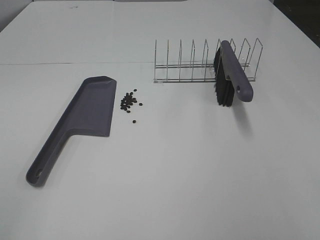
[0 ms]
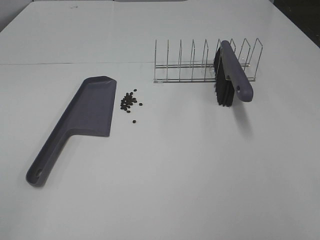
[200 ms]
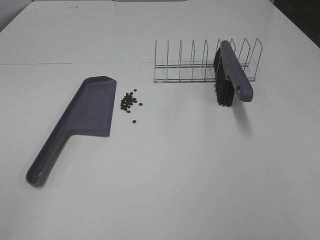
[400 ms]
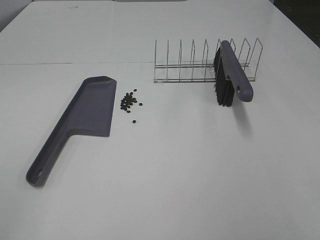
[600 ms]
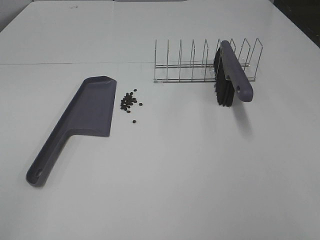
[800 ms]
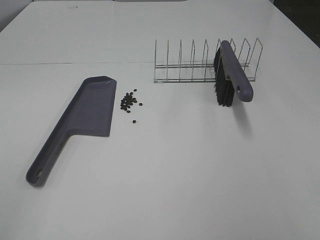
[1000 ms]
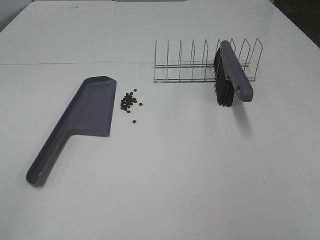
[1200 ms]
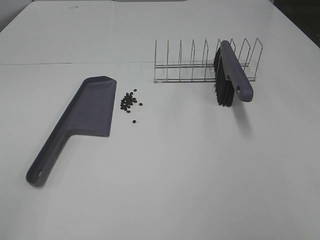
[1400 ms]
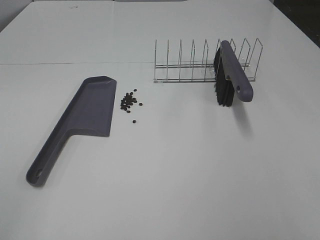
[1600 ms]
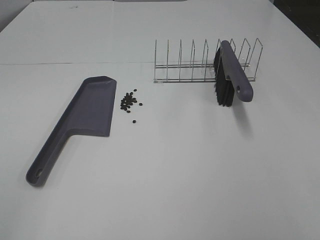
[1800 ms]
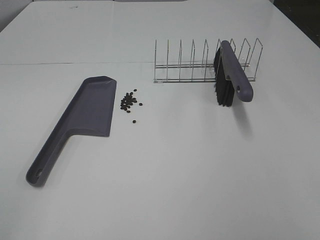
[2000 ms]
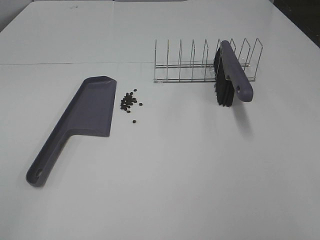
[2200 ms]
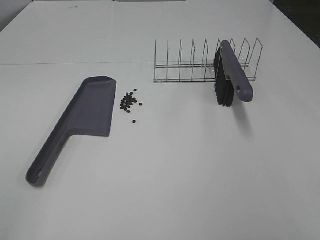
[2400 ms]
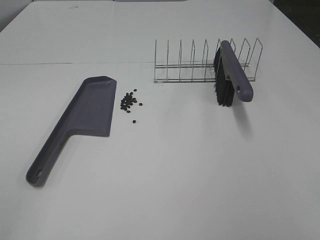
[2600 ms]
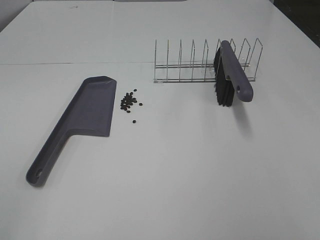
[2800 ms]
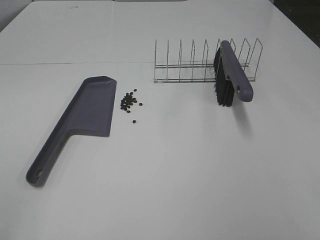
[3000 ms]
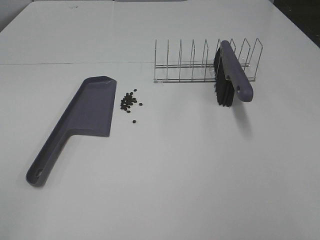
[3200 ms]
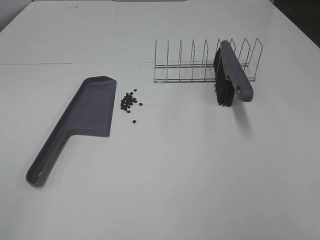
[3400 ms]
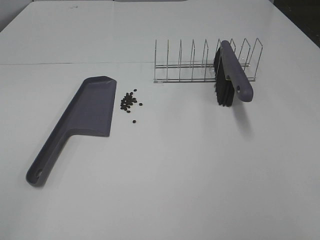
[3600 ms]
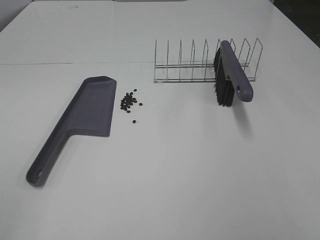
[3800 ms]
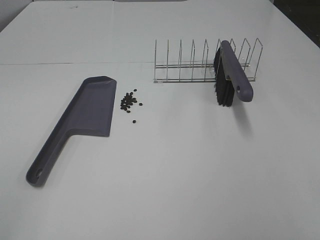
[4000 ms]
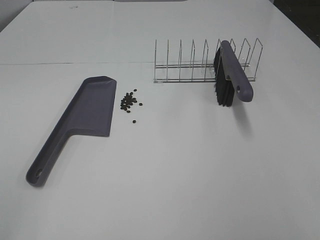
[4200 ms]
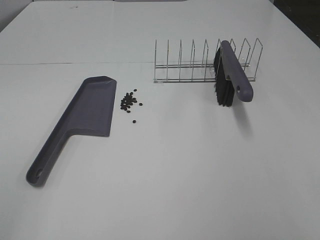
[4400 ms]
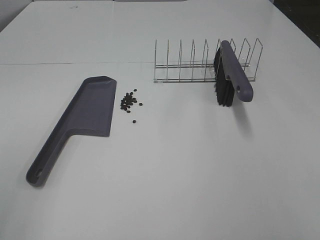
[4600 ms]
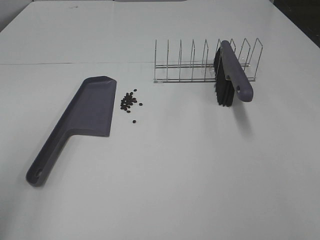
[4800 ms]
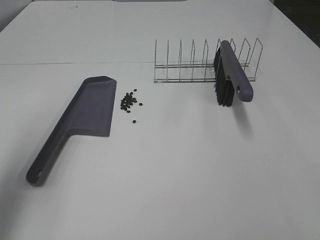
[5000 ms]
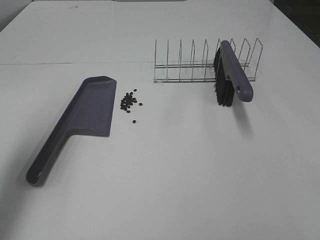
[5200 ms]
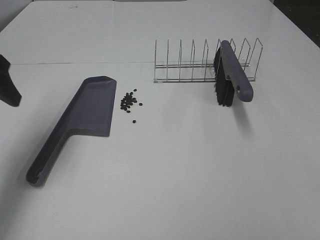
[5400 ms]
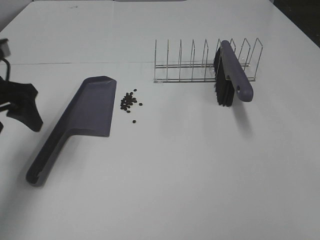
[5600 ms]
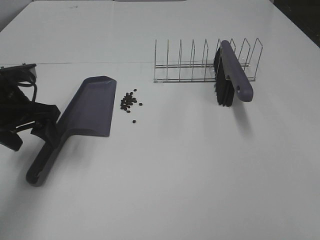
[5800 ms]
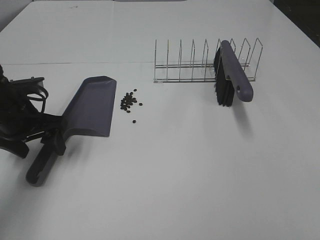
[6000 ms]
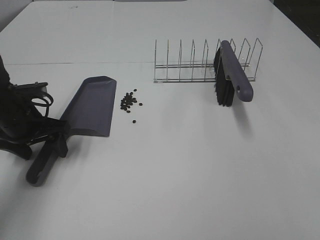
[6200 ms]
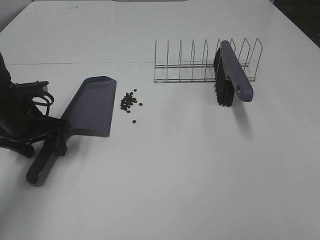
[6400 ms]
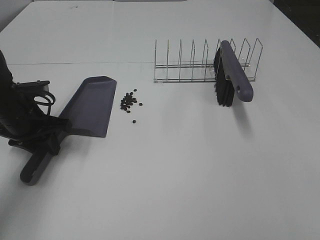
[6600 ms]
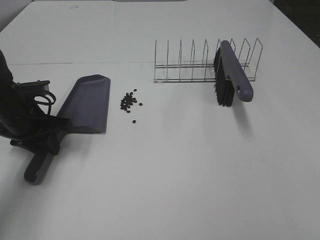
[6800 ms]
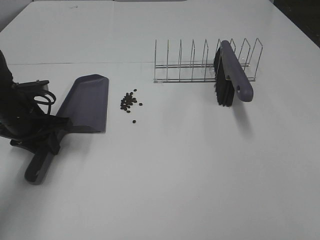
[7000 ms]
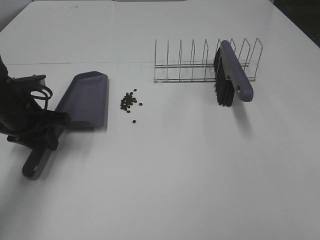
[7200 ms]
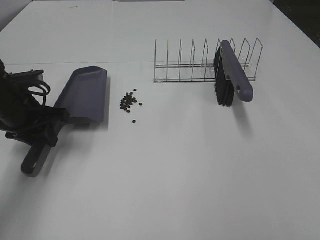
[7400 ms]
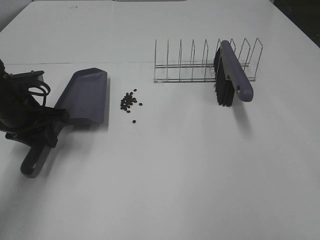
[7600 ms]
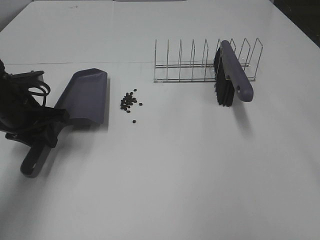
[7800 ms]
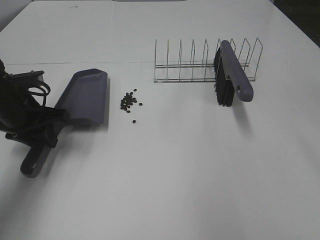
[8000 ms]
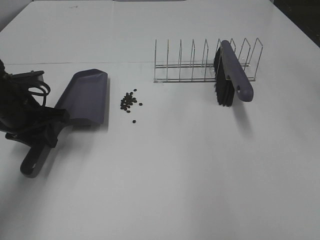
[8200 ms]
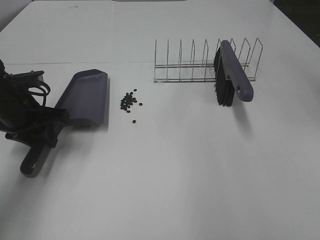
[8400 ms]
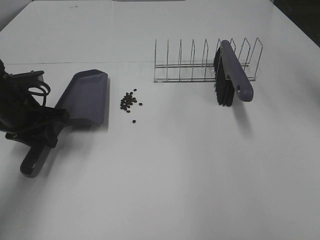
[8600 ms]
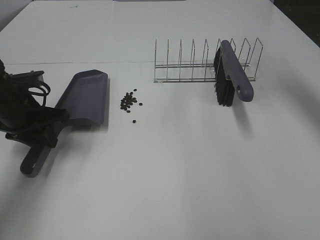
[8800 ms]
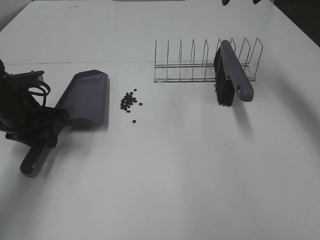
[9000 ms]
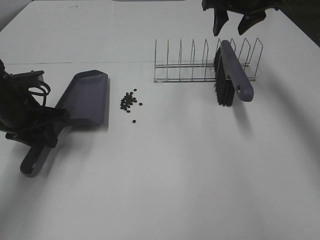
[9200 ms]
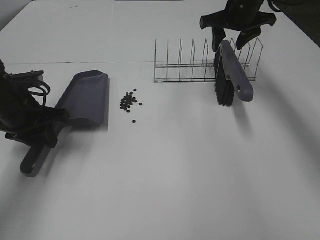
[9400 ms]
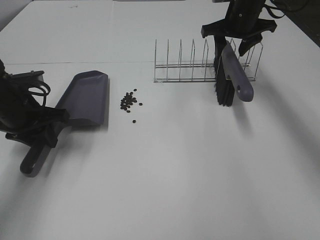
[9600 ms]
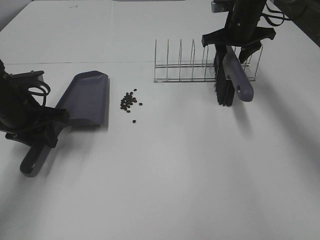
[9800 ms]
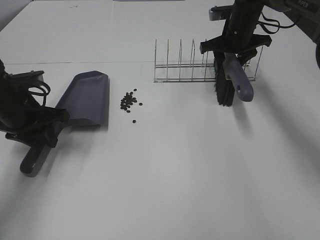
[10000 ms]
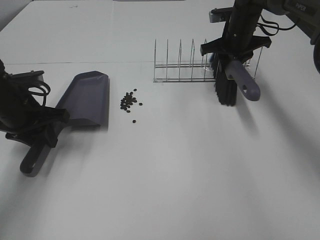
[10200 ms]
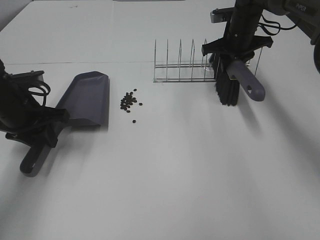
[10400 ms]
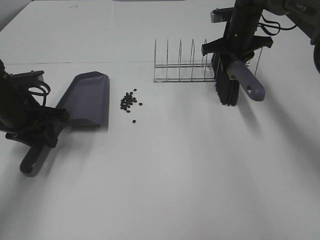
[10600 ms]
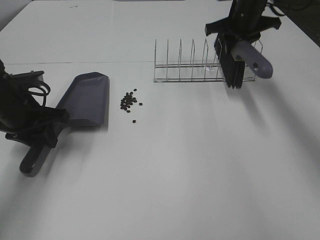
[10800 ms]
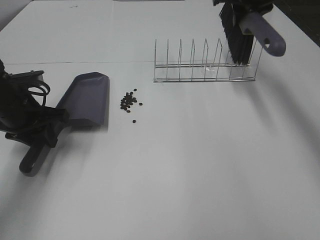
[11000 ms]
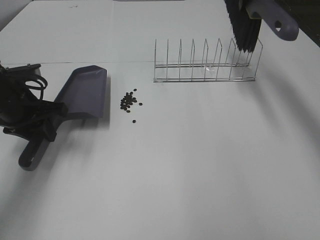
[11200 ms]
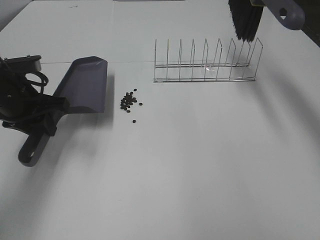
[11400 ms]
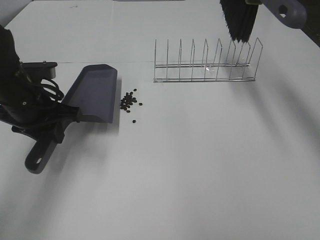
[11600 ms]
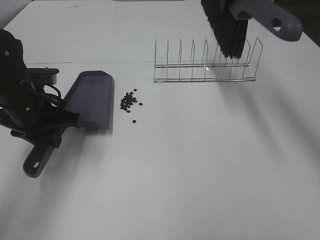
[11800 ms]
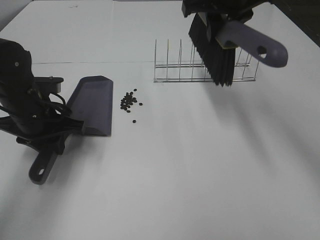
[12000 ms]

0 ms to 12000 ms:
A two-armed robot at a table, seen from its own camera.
Task of the whole recording: Sweep Coffee Bean.
Step, 0 ms to 6600 ms: Left hand: grab the dustpan.
Step, 7200 ms to 10200 ms: Right hand:grab the broom.
0 ms to 4400 ms: The two grippers keep their place.
4400 ms to 6000 ms: The left gripper moves forward and downward, some 35 cm.
6000 ms to 7600 ms: The left gripper closes up.
7600 ms to 9000 ms: The right gripper heads forward, covering approximately 40 cm, and closes.
9000 ms to 10400 ms: The right gripper heads downward, covering approximately 15 cm, and closes up.
10400 ms to 12000 ms: The right gripper shifts approximately 20 cm upward, backward and to the left.

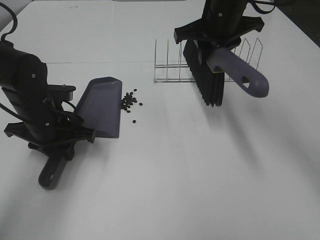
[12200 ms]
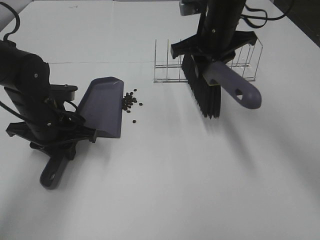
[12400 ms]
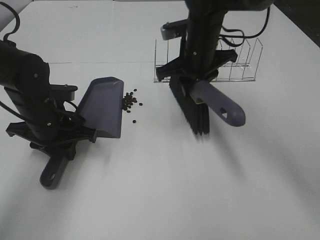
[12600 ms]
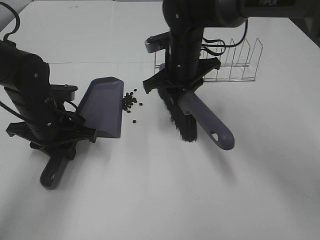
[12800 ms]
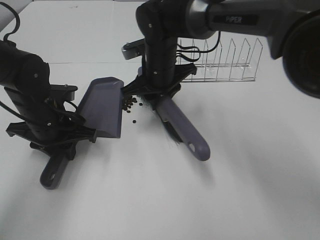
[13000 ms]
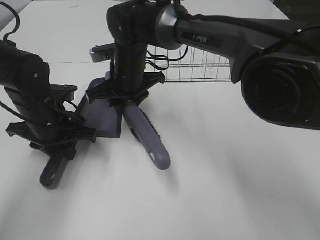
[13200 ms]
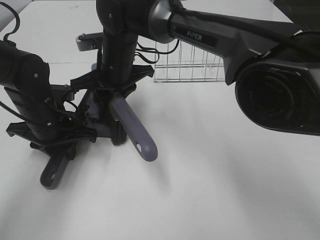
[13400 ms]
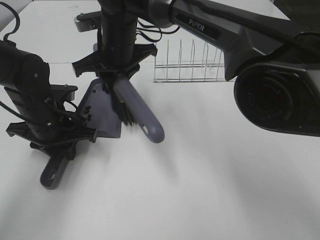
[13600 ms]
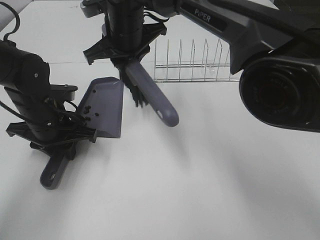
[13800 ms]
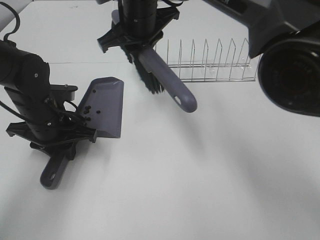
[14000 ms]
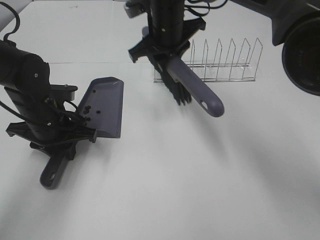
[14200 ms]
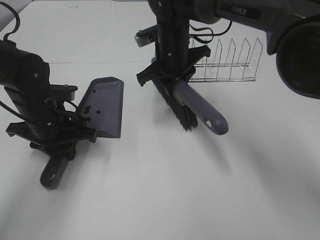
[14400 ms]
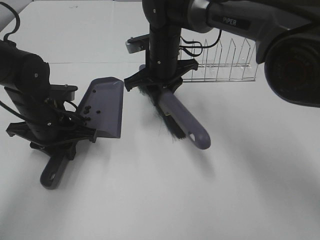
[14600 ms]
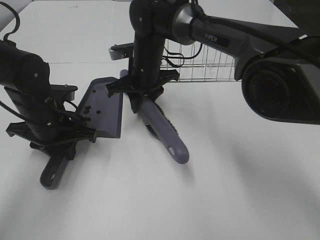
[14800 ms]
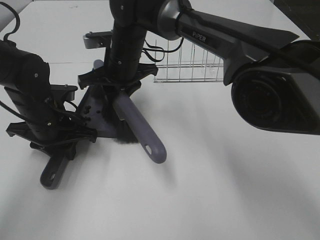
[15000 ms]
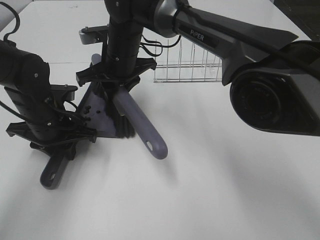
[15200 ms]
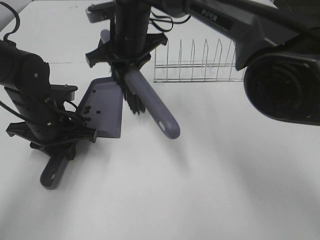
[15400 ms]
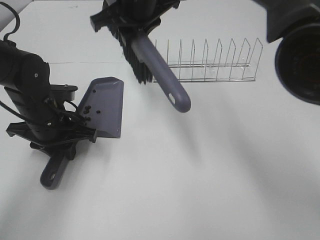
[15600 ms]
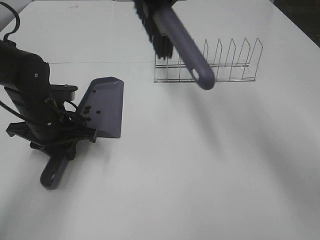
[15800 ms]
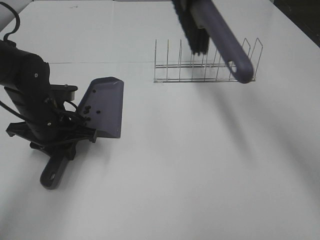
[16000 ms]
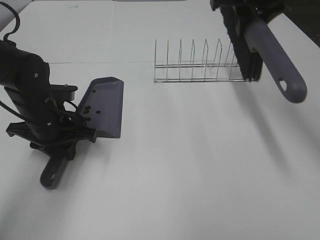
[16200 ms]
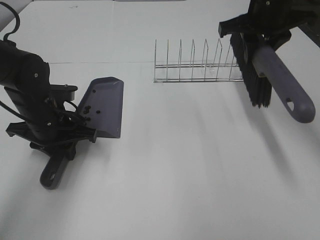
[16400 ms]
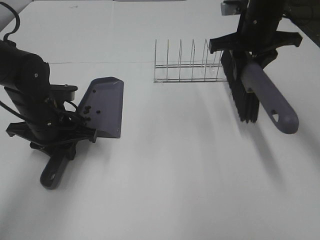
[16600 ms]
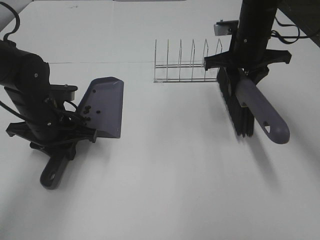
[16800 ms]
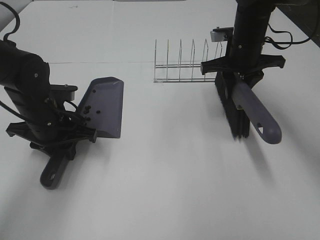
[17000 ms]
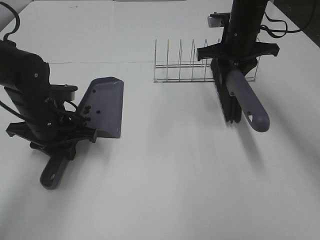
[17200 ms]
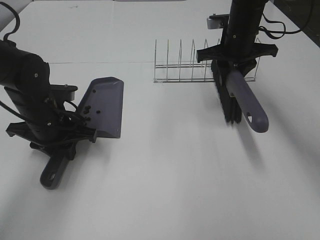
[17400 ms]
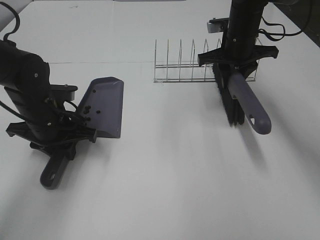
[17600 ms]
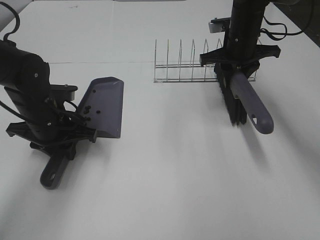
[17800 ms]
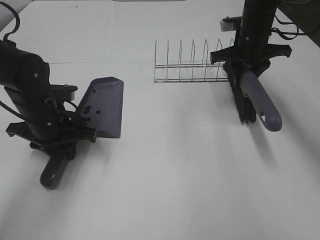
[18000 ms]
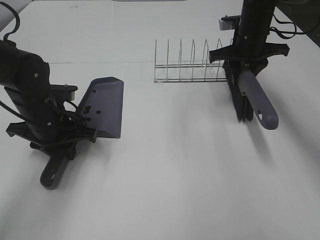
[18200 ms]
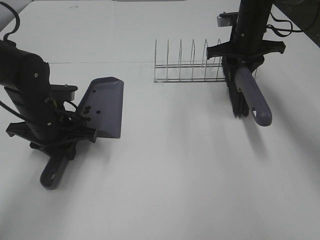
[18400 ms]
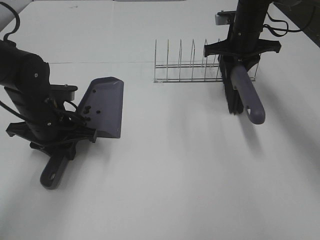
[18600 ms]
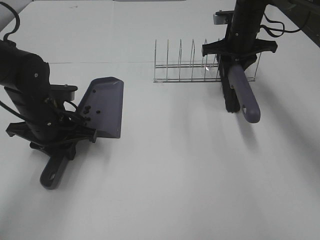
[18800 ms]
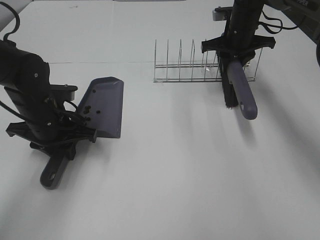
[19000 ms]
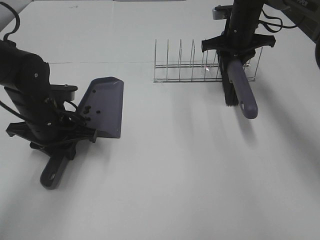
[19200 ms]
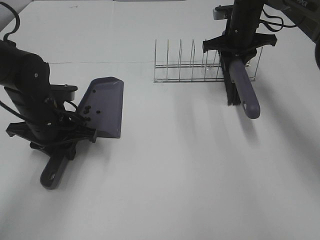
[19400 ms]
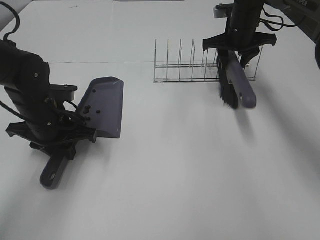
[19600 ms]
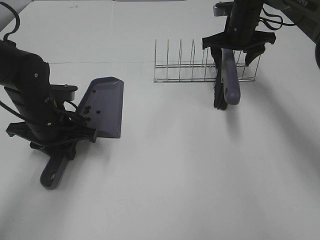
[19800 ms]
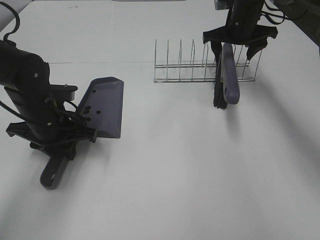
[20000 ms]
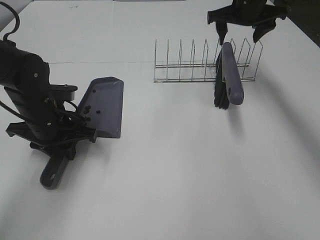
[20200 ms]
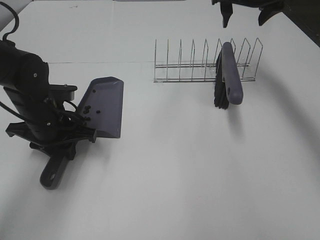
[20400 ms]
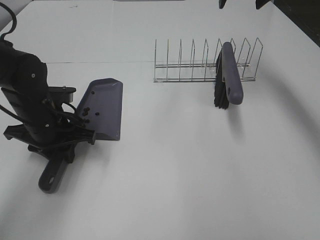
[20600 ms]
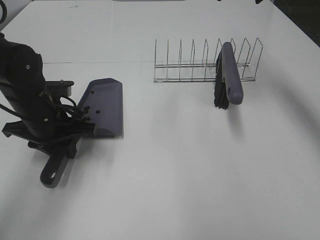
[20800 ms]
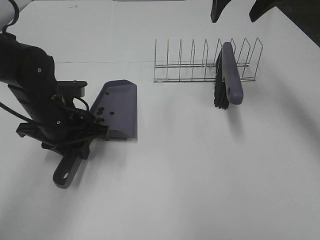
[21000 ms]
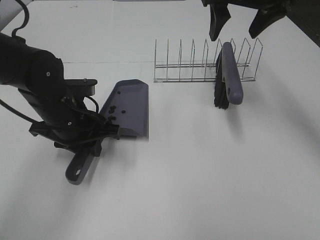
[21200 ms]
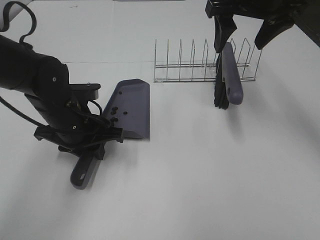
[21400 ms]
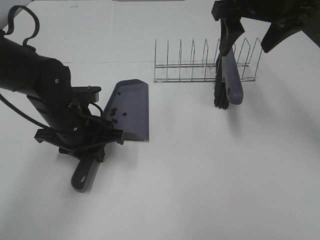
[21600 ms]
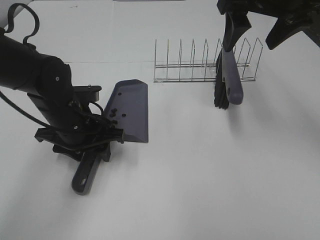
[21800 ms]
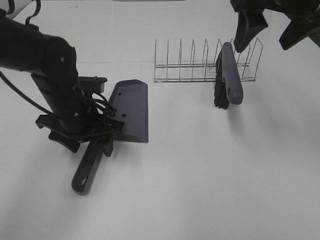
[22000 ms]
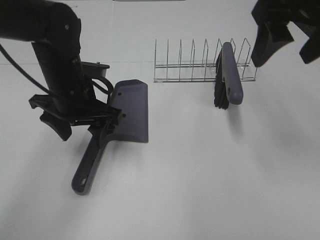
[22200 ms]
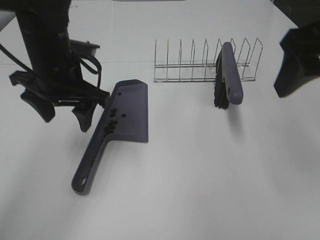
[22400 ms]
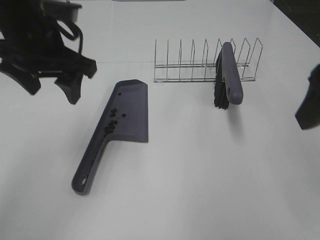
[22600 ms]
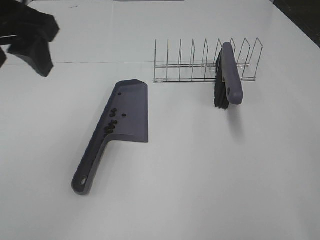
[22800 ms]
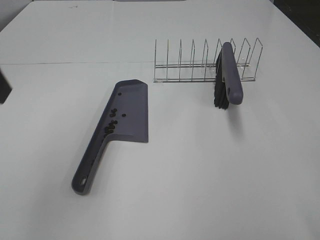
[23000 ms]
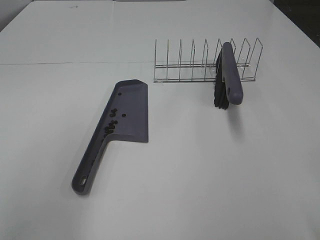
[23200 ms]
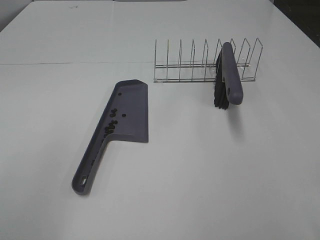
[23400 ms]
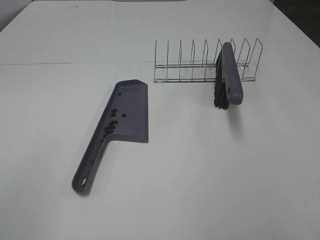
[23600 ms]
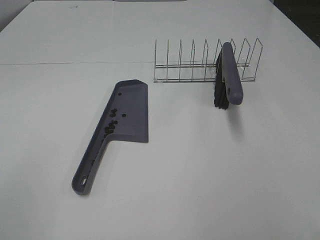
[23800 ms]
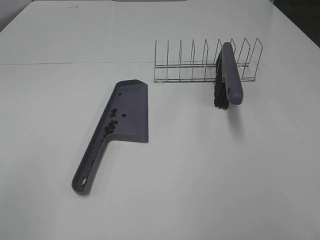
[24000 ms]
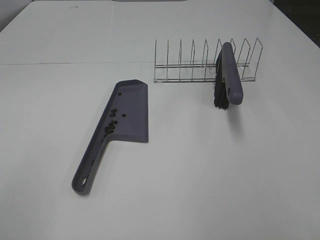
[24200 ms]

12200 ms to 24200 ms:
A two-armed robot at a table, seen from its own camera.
Task of the whole recording: Sweep Coffee Bean.
Step, 12200 ms to 15200 ms: Right hand:sweep the coffee beans into the dustpan.
Step, 15400 ms to 19800 ms: Right hand:place the broom on the rack.
Step, 20000 ms to 21800 ms: Left hand:place the dustpan on the table.
12200 ms to 13800 ms: The right gripper is displaced to the left by roughly 15 cm.
15200 ms to 16600 ms: The right gripper goes some 25 cm to the right.
16600 ms to 18200 ms: The right gripper goes approximately 5 cm forward.
18200 ms to 19800 ms: The right gripper opens up.
19800 ms to 21200 ms: The left gripper ends up roughly 5 cm from where it was; the right gripper moves upward and backward, some 20 cm.
21200 ms to 22600 ms: The left gripper is displaced upward by some 15 cm, and opens. Meanwhile the right gripper shifts roughly 25 cm backward.
22600 ms to 24200 ms: The left gripper moves backward and to the left, roughly 35 cm; the right gripper travels backward by approximately 15 cm.
